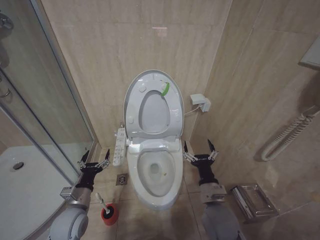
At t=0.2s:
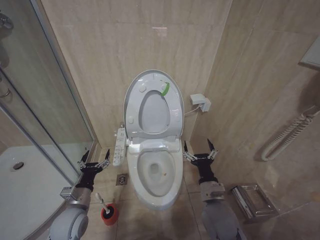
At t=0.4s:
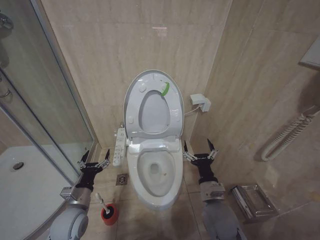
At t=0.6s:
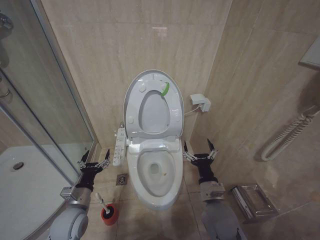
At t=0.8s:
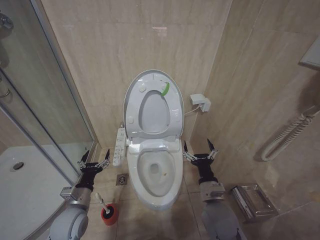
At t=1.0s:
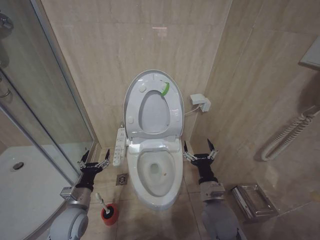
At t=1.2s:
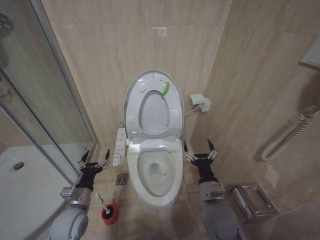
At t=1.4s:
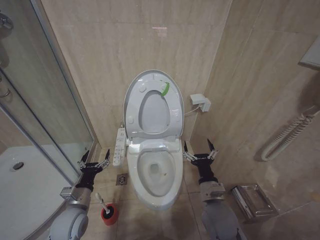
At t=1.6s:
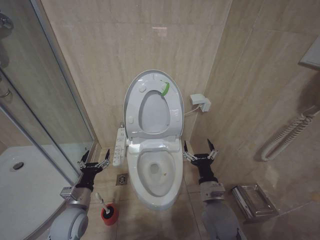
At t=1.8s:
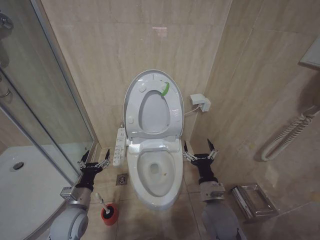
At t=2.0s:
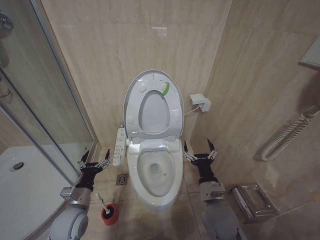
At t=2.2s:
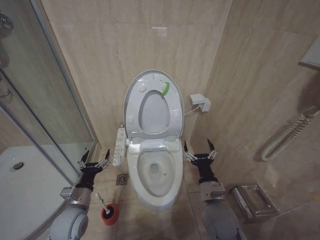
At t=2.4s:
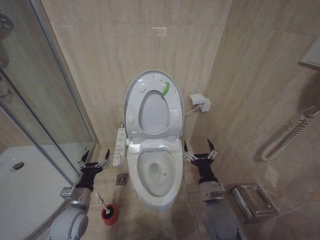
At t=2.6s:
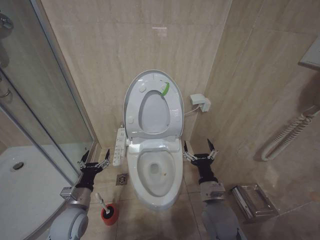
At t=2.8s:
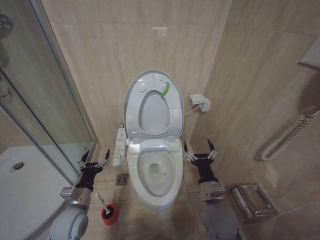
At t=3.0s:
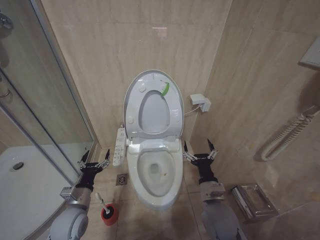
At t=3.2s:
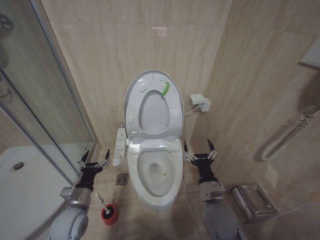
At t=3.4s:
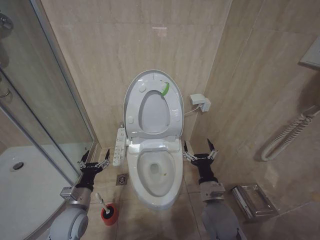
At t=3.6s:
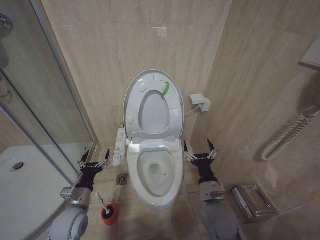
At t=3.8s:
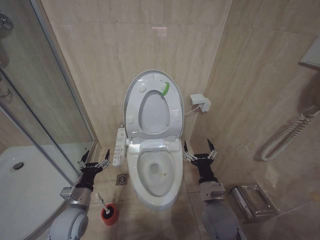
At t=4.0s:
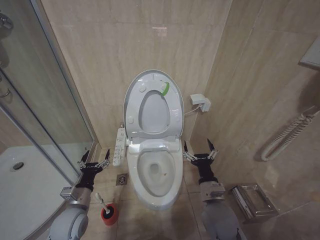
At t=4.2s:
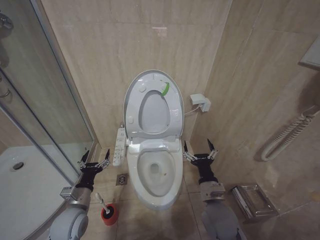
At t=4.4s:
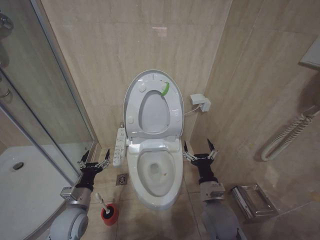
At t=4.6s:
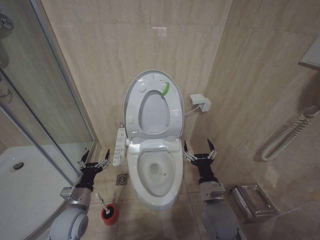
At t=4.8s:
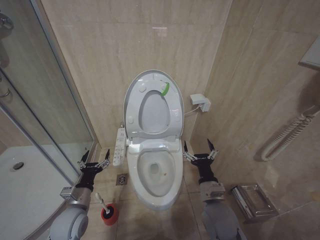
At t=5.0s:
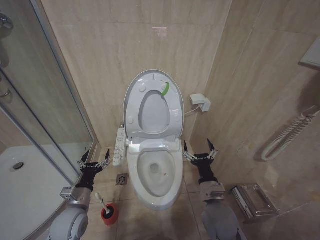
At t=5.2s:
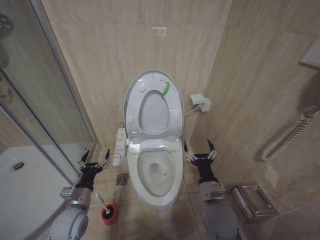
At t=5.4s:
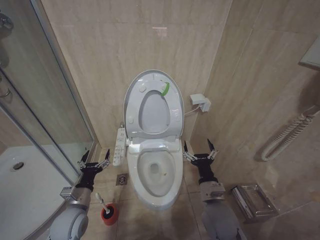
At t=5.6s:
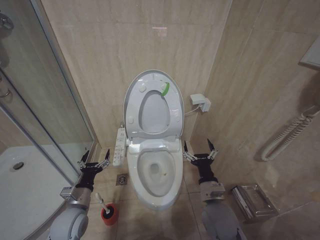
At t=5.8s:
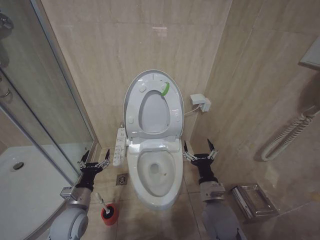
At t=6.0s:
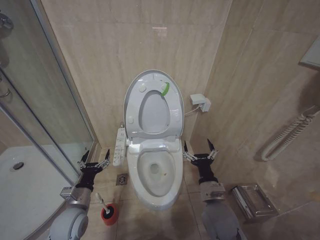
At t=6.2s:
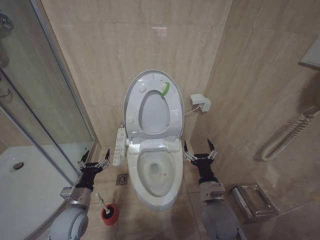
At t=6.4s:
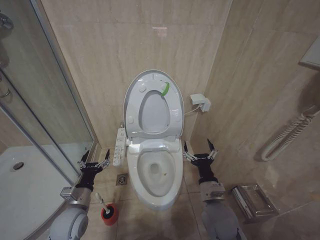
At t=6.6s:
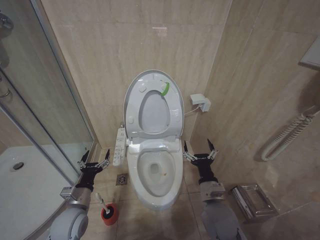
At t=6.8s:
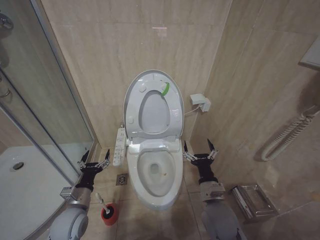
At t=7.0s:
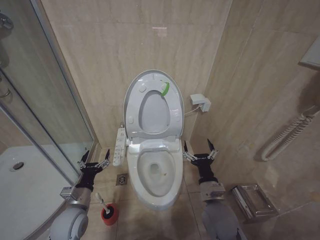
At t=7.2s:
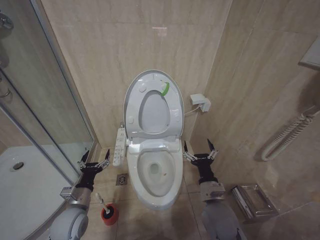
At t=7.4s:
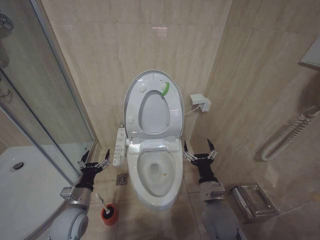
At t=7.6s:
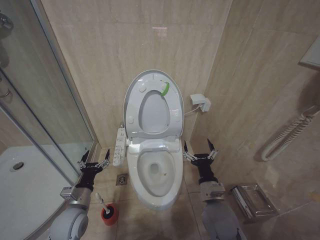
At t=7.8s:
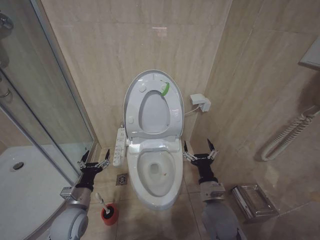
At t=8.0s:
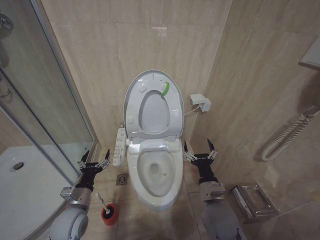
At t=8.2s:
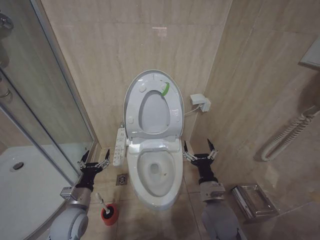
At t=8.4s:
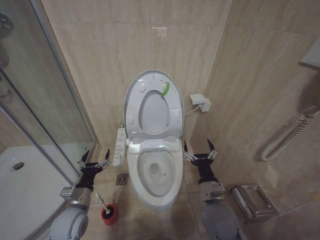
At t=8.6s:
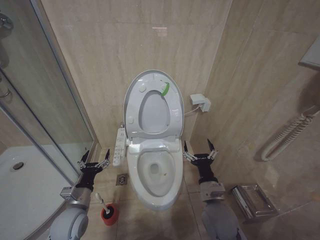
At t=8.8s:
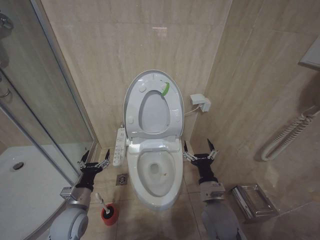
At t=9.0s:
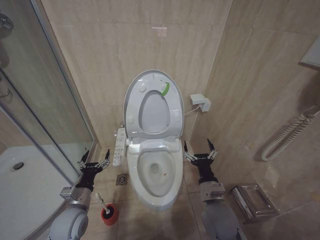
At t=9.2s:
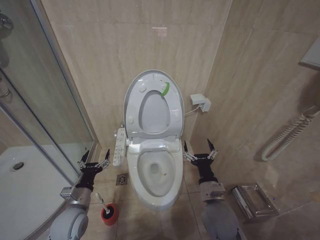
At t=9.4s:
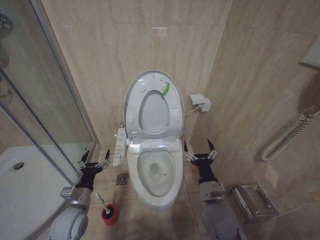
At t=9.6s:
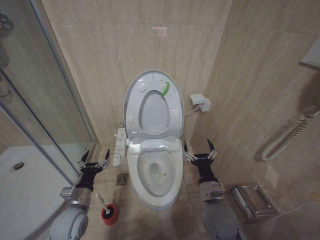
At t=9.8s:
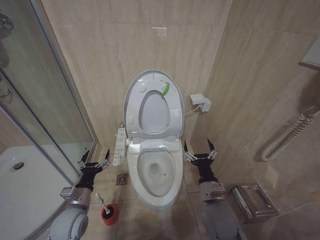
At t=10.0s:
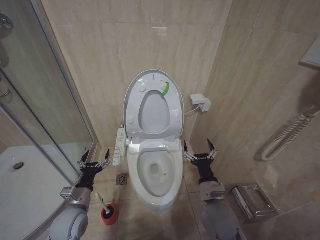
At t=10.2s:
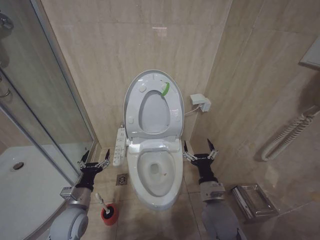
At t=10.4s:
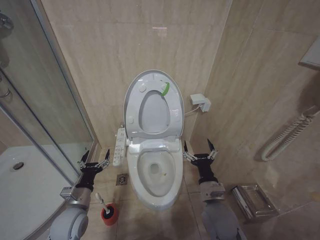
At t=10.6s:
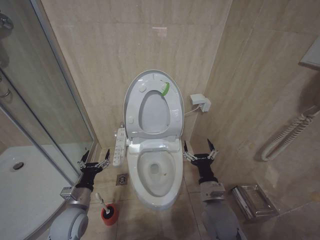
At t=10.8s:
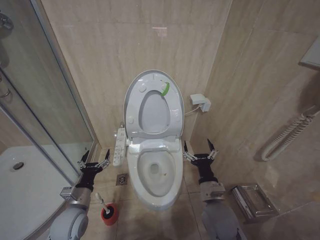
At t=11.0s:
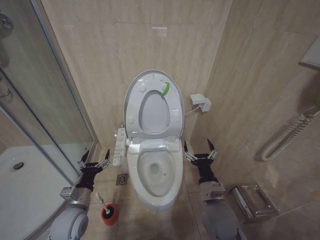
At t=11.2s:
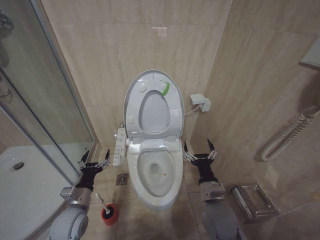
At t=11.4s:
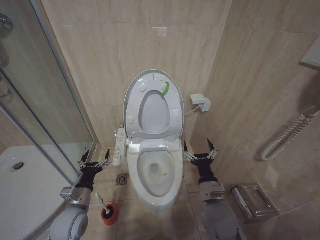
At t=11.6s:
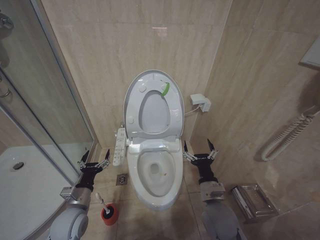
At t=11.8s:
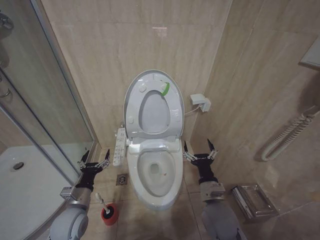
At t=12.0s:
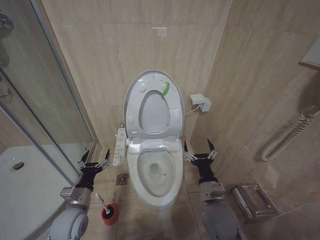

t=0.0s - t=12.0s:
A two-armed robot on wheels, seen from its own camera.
Task of the whole recording: Open the toilet lid, clean the toilet bowl with a toilet brush, close the toilet lid, and flush.
t=0.0s - t=12.0s: Both grippers stay put.

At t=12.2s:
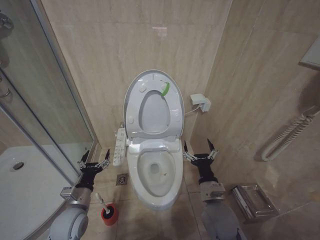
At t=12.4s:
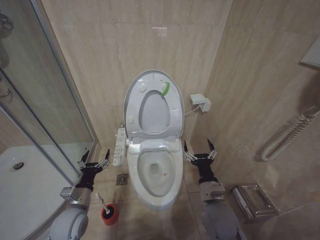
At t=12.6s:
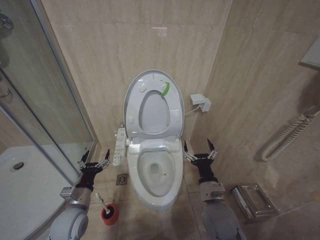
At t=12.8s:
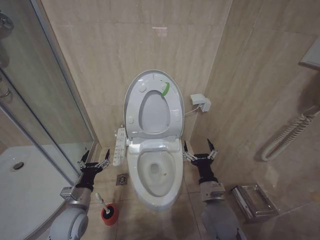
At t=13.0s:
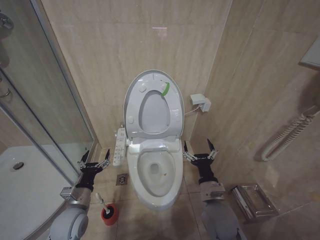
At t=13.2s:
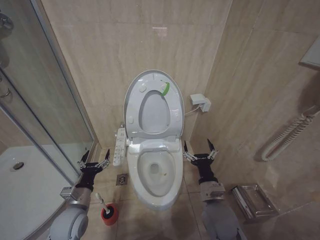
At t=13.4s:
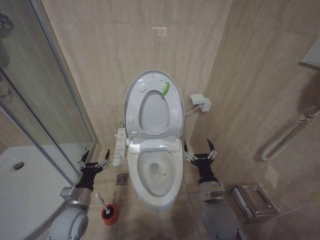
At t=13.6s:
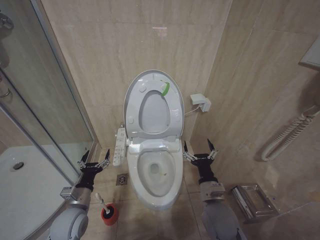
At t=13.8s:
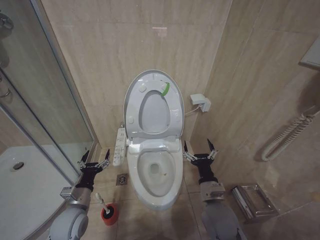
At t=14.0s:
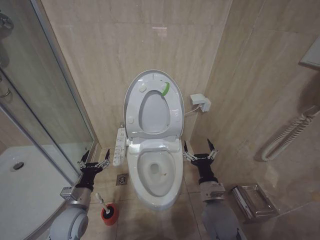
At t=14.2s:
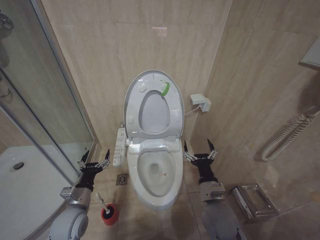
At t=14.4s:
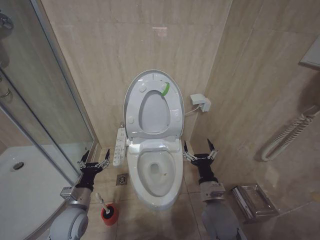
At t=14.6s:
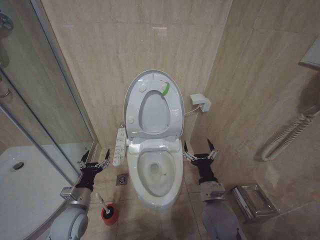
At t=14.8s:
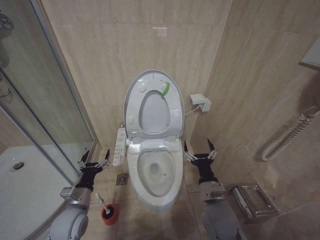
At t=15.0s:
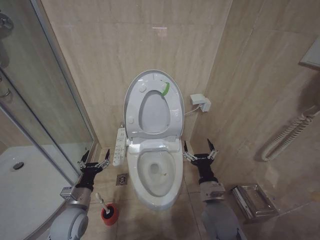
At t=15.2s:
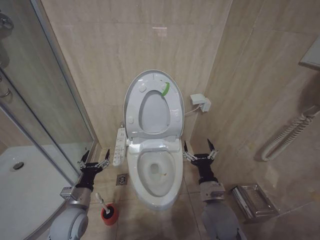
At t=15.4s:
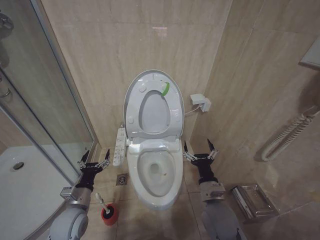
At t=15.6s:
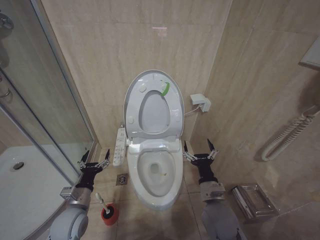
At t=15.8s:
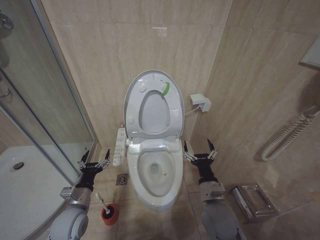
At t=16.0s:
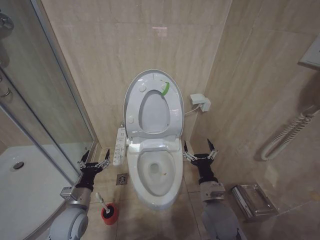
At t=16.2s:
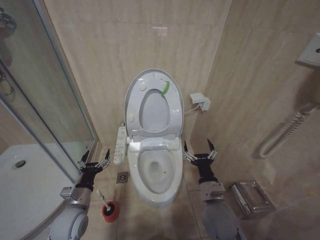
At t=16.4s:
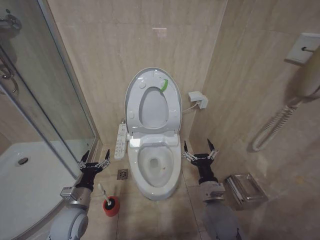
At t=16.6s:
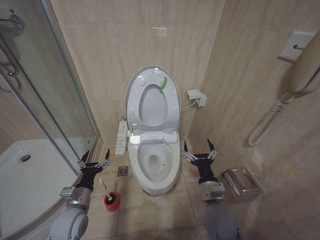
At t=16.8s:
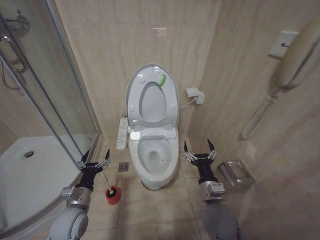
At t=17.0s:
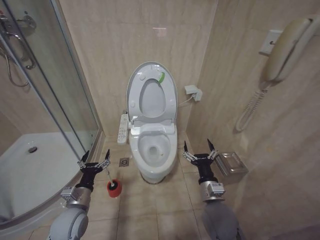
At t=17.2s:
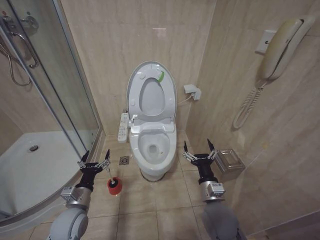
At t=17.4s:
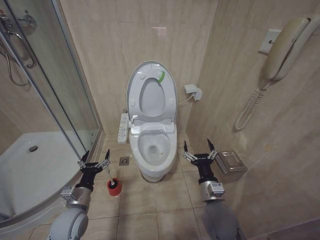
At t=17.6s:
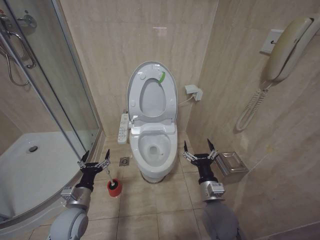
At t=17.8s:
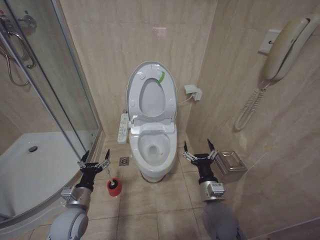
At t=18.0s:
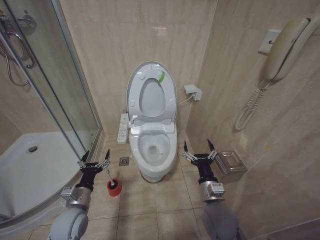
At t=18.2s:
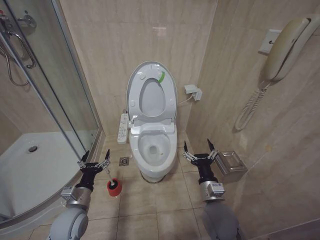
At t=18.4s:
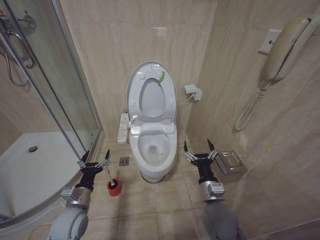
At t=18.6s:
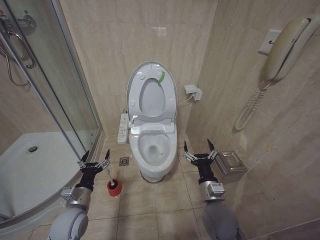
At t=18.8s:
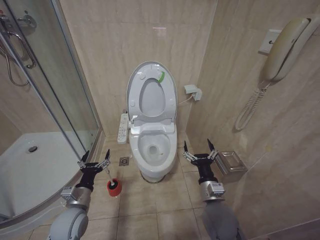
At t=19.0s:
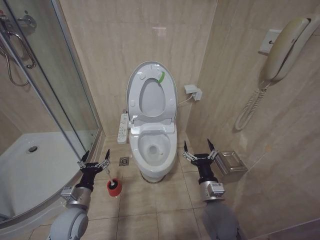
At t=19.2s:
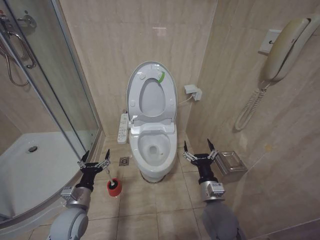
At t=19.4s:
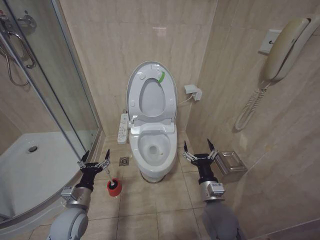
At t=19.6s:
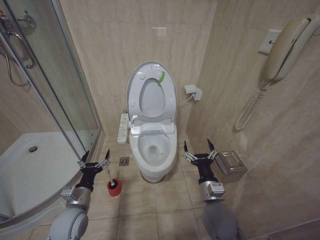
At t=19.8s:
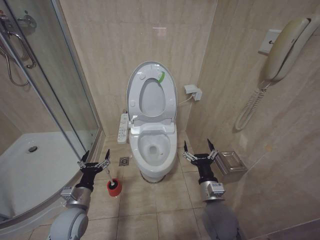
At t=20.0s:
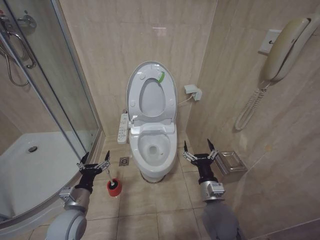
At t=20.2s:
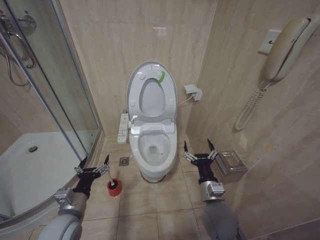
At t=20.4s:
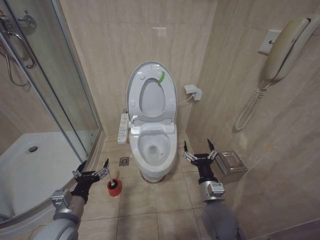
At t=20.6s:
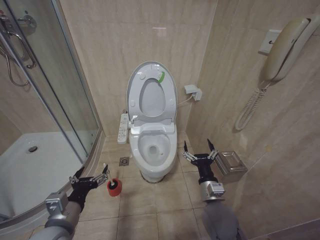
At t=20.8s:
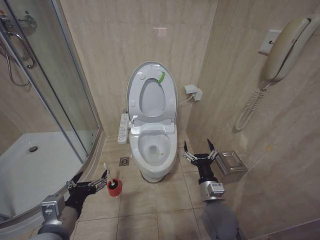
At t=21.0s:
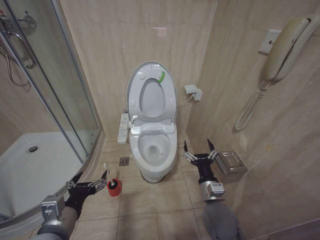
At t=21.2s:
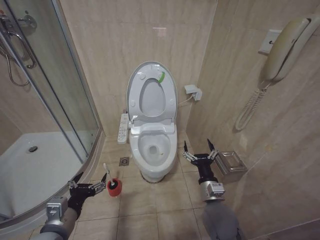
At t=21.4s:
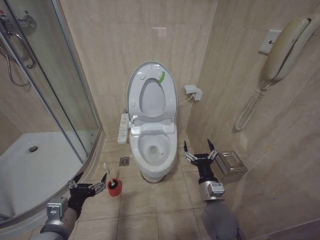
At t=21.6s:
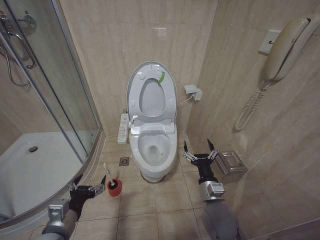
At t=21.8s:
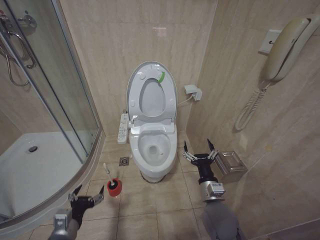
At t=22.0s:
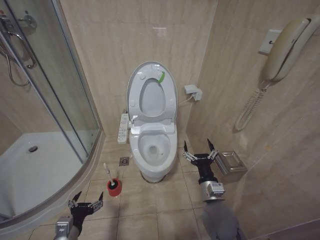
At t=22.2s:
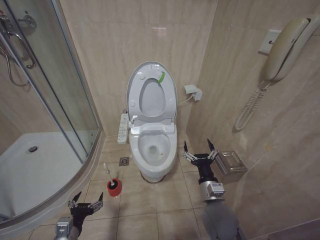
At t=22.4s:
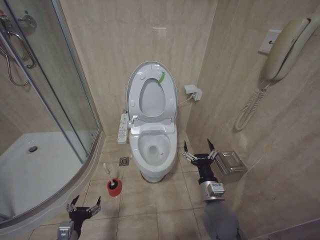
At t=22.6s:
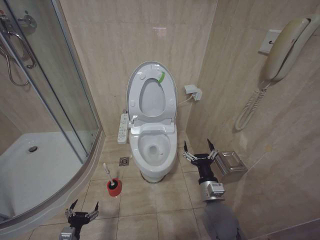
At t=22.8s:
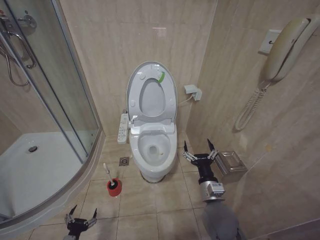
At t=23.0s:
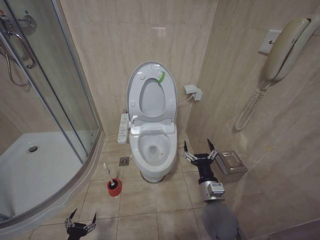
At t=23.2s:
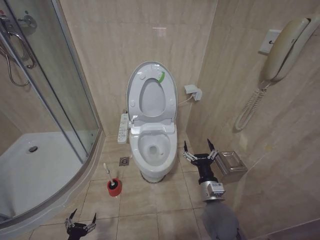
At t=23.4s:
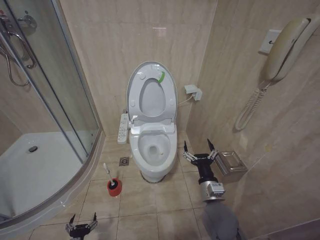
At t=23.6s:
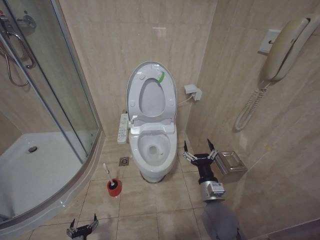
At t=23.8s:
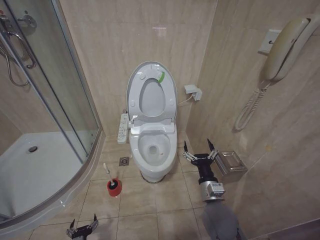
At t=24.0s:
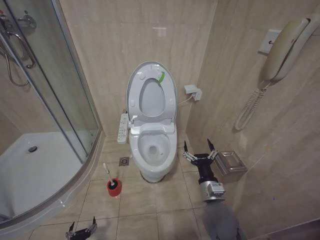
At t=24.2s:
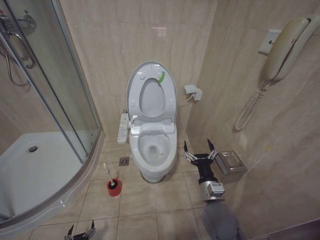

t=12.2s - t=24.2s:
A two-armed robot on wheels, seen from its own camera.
Task of the whole recording: Open the toilet lid, clean the toilet bowl with a toilet brush, close the toilet lid, and flush.
t=12.2s - t=19.8s: The two grippers keep their place.
t=19.8s - t=21.2s: The left gripper moves upward and backward, some 15 cm.
t=21.2s - t=22.6s: The left gripper travels downward by roughly 20 cm.
t=22.6s - t=24.2s: The left gripper moves downward, roughly 20 cm.
